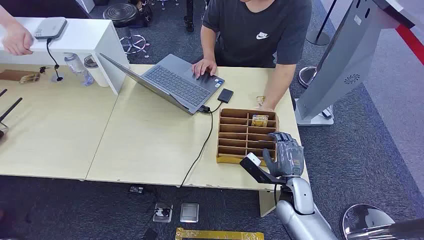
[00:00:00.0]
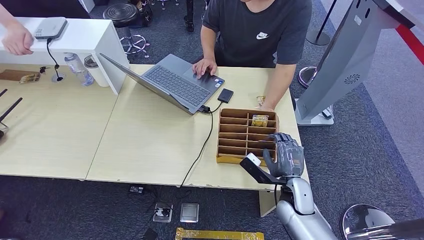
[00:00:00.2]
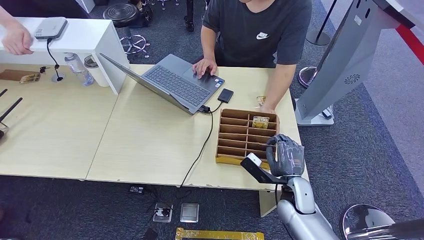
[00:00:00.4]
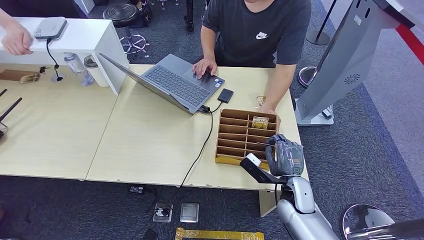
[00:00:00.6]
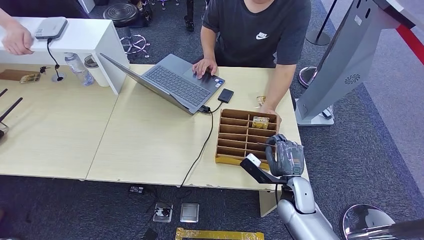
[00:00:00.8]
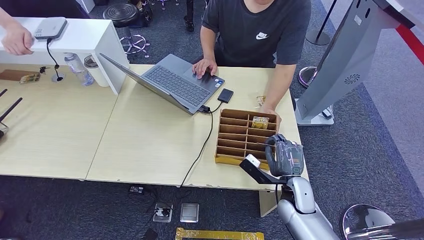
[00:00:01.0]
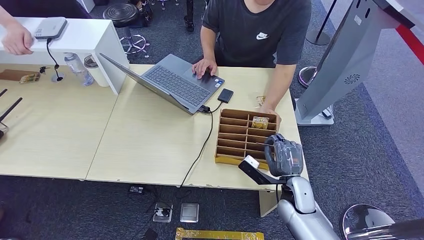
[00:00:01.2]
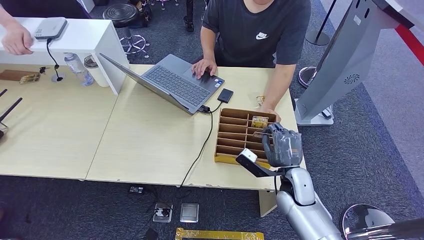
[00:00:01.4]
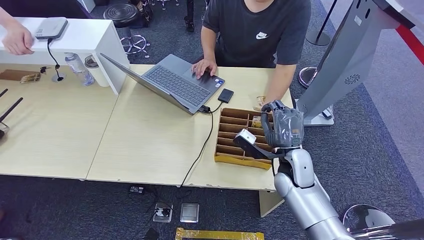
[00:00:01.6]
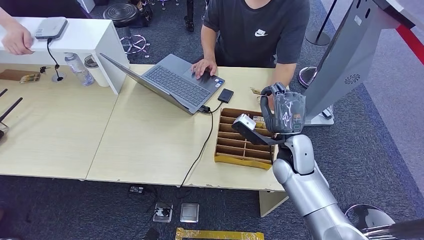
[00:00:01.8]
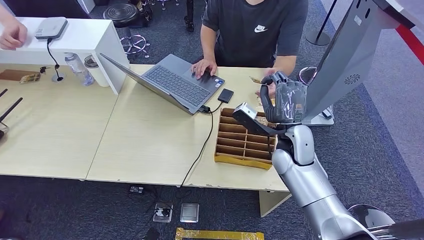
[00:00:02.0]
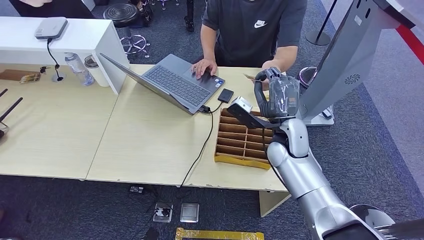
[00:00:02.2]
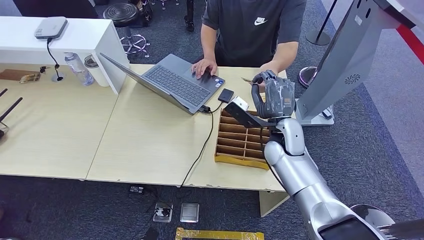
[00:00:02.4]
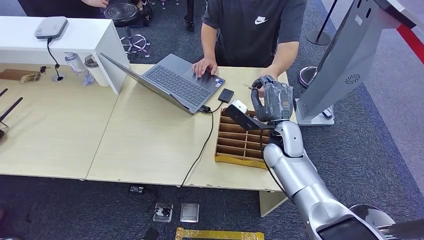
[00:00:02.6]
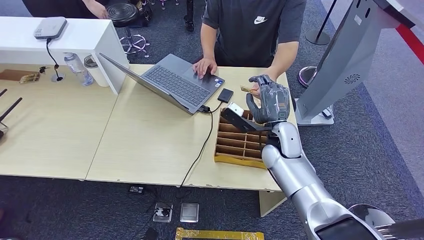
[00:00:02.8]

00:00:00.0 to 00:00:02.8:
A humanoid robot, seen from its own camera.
Step, 00:00:00.0 to 00:00:01.2: Pick up the room card from the card holder.
Step, 00:00:01.6 to 00:00:02.8: Hand the room card to the target.
00:00:01.4 to 00:00:02.8: The right hand shifts some 15 cm forward, upward and to the left.
